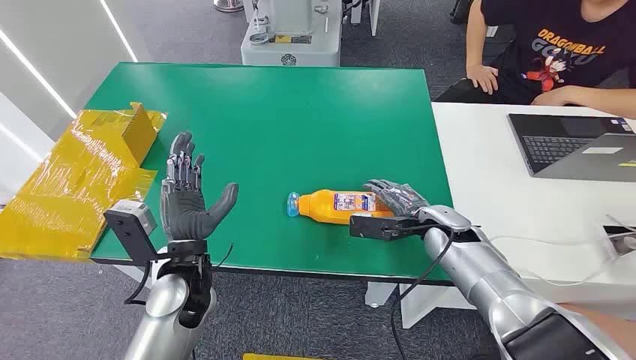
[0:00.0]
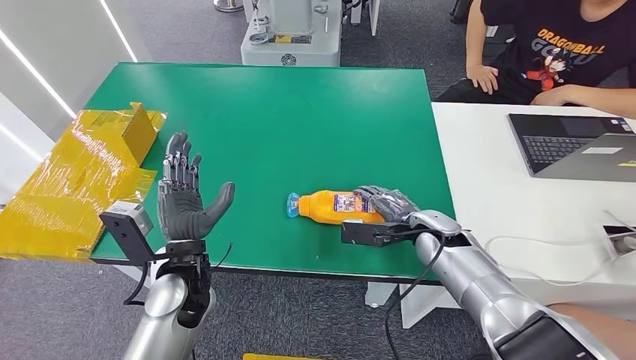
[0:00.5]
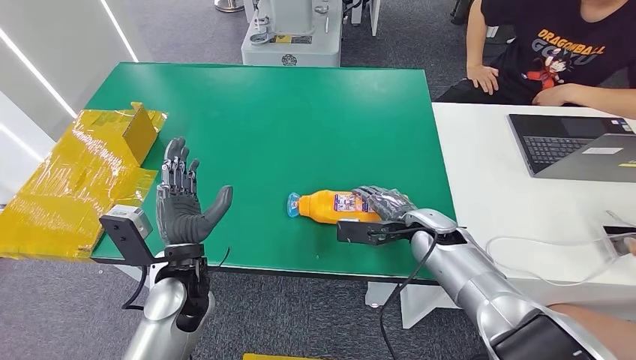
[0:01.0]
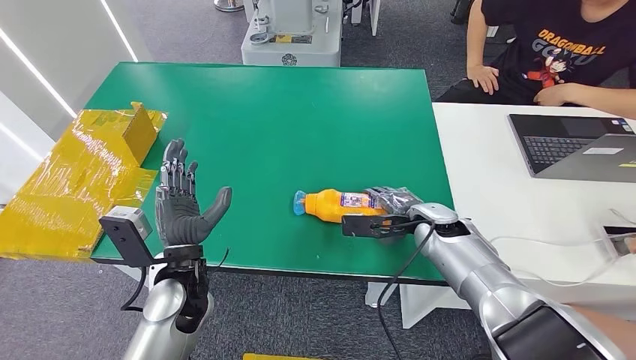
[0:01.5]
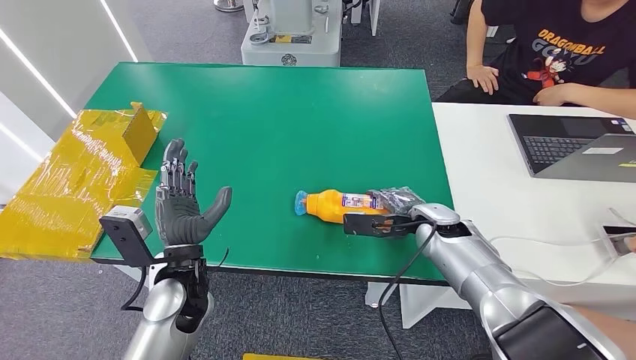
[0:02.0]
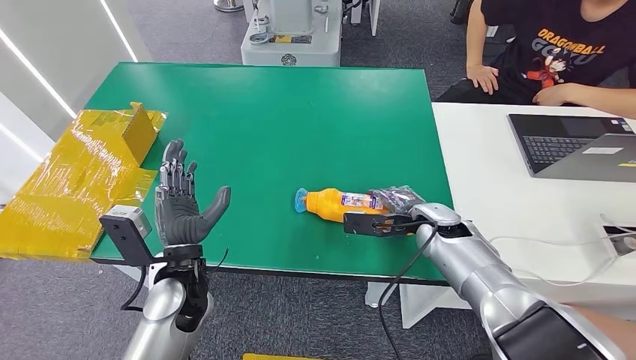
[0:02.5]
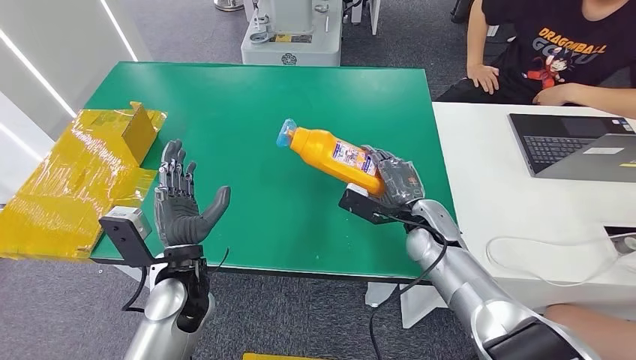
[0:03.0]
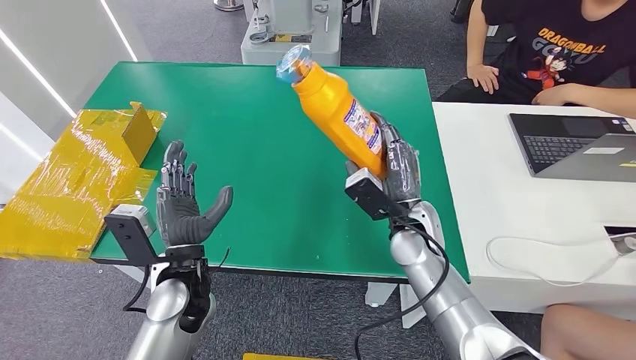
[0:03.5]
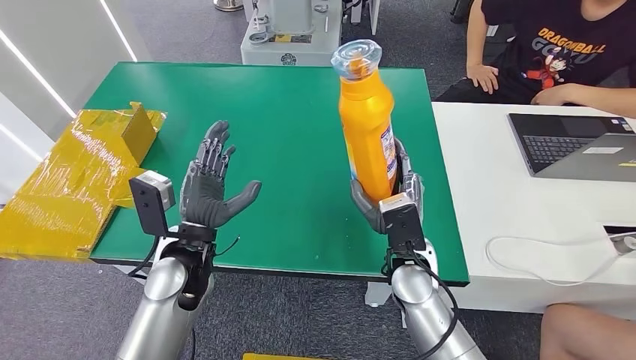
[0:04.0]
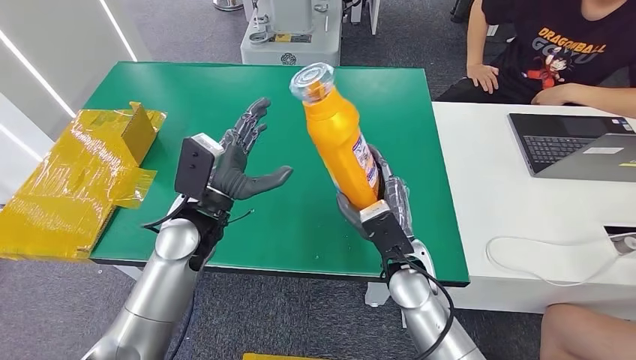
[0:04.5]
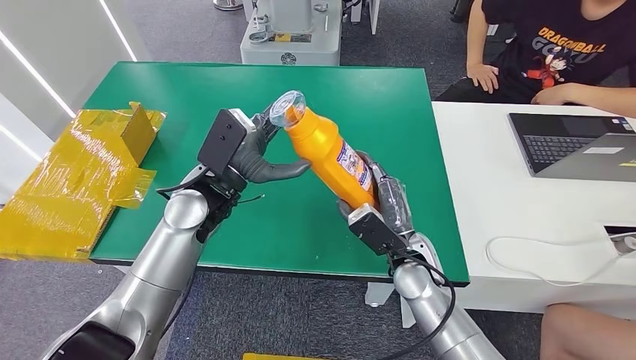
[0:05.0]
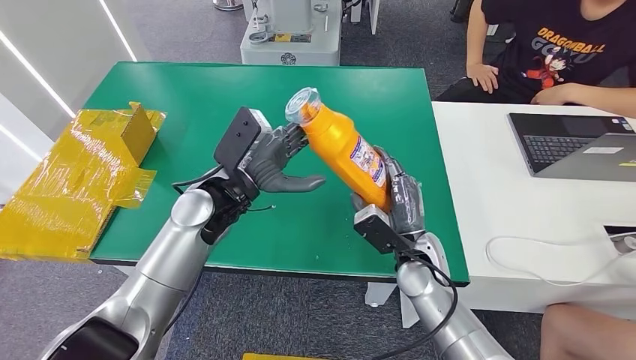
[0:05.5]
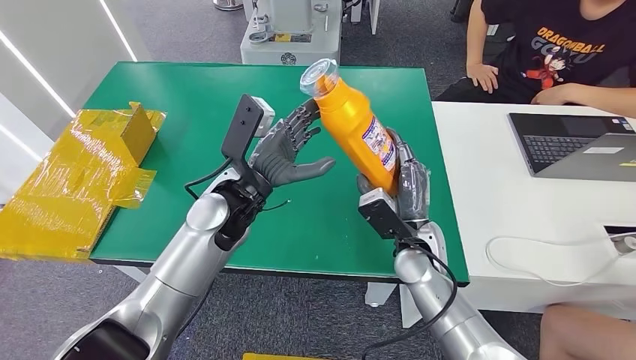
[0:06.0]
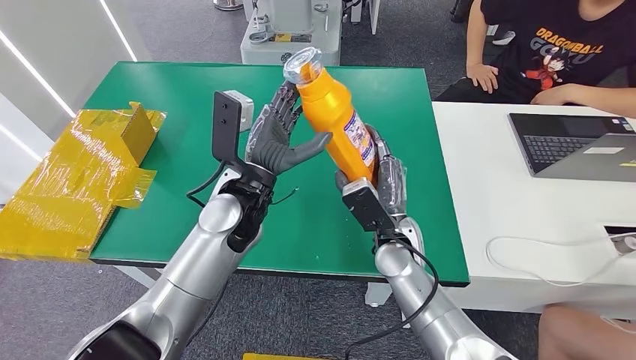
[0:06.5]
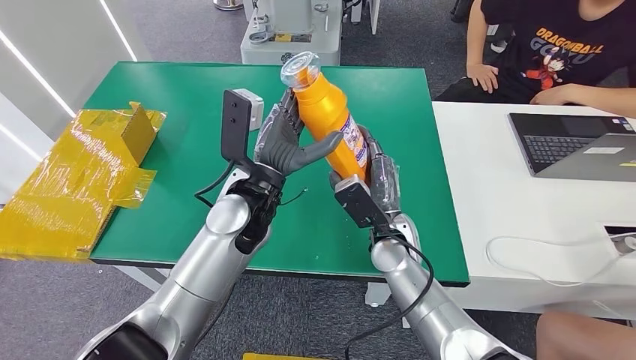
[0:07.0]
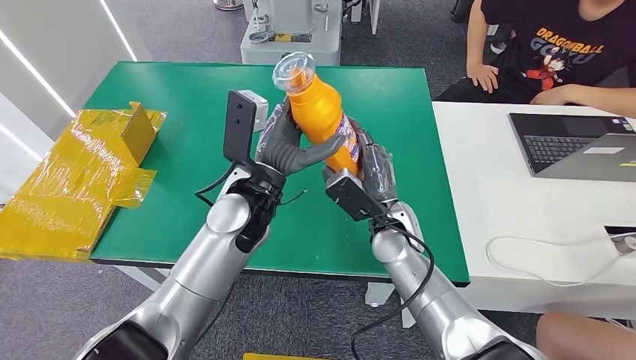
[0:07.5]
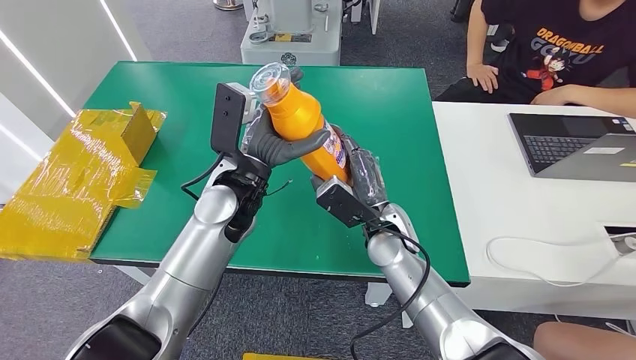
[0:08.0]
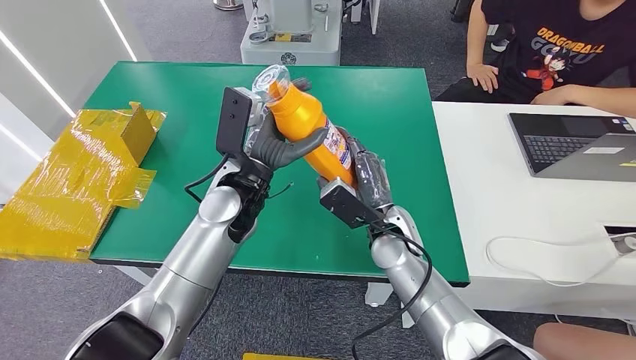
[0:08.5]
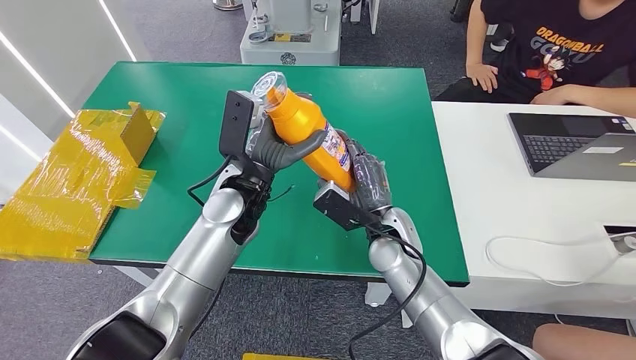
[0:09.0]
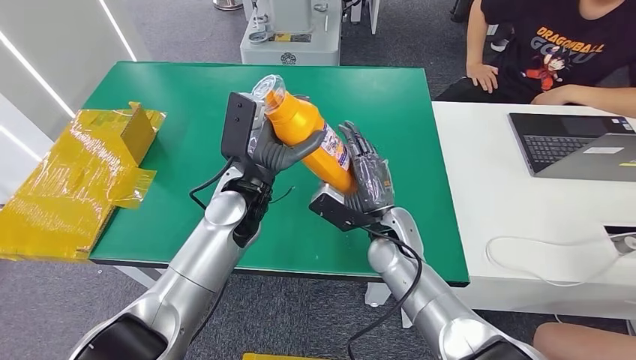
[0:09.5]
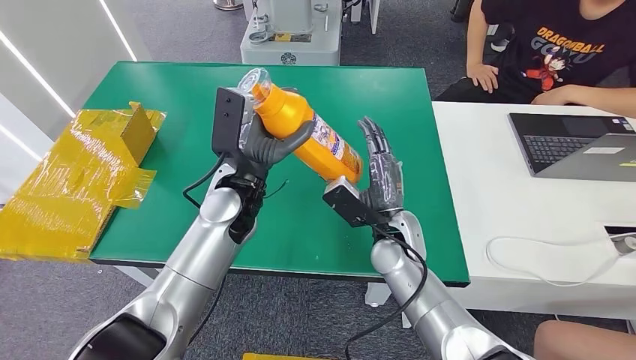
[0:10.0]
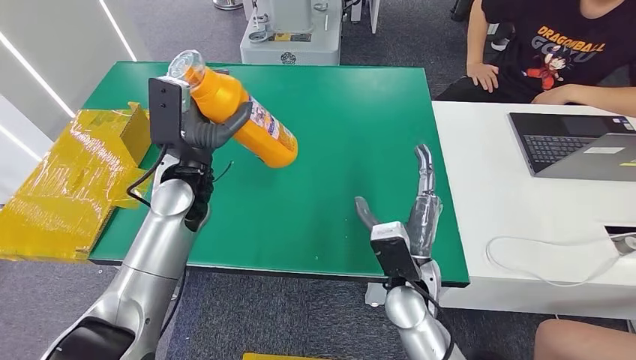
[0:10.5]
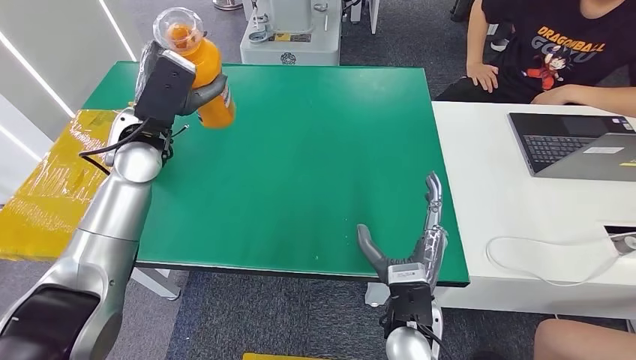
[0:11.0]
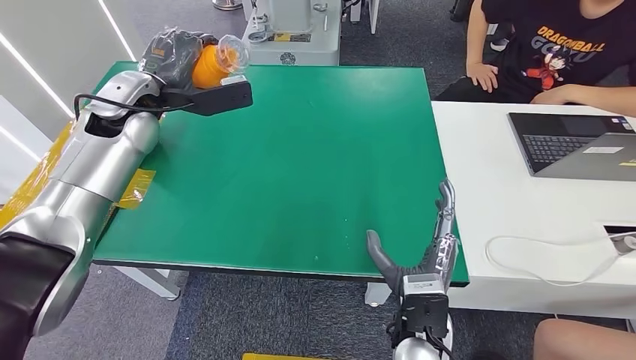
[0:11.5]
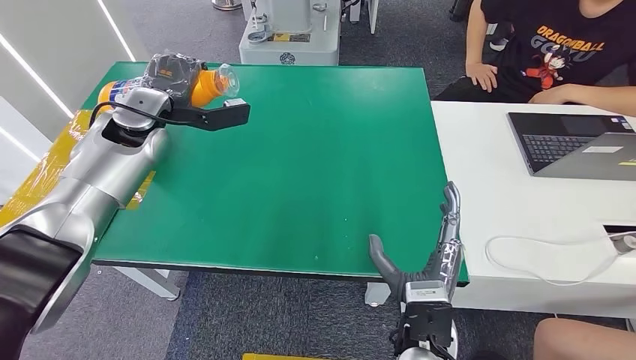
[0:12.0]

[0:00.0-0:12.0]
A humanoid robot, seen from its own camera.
Step, 0:00.0 to 0:03.5: Pick up the bottle from the table.
0:02.0 to 0:04.0: The right hand moves to the left and backward, approximately 15 cm.
0:04.0 to 0:06.0: The left hand heads forward, covering approximately 5 cm.
0:06.0 to 0:08.0: The right hand is displaced to the left by some 5 cm.
0:08.0 to 0:10.0: There are only small adjustments of the hands.

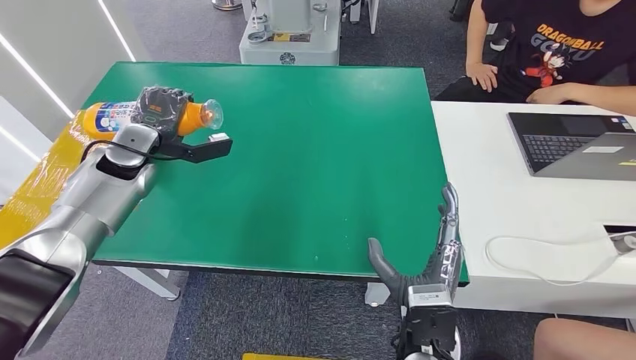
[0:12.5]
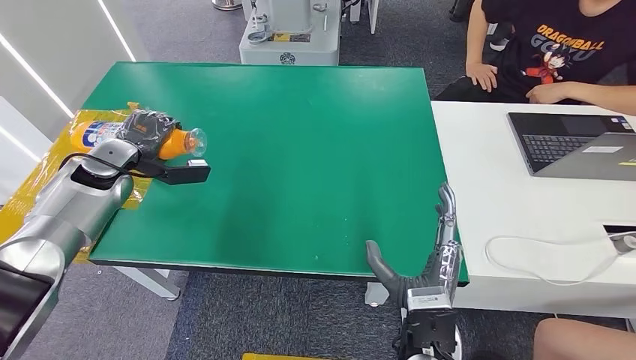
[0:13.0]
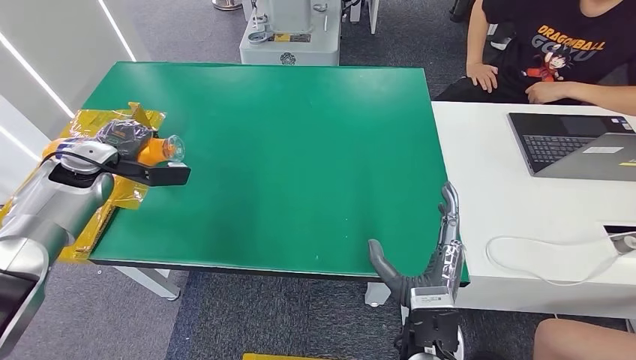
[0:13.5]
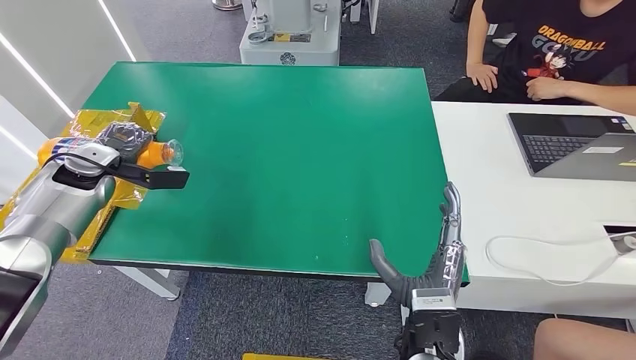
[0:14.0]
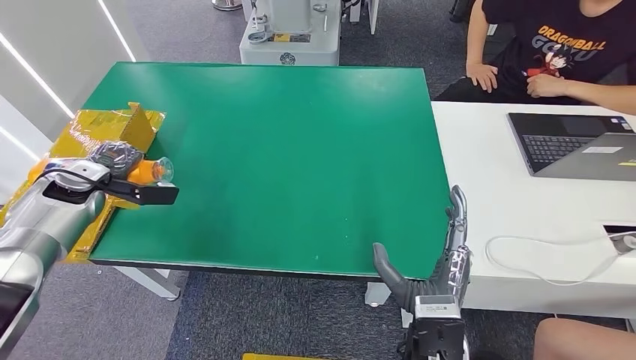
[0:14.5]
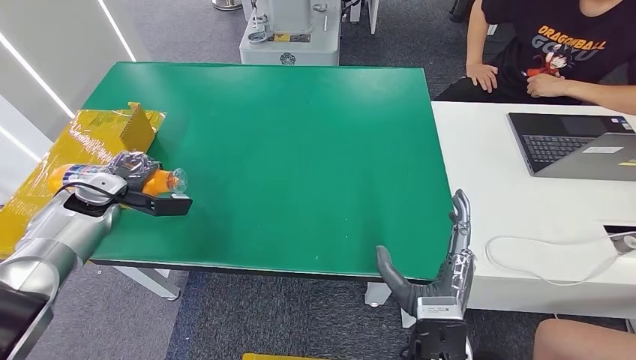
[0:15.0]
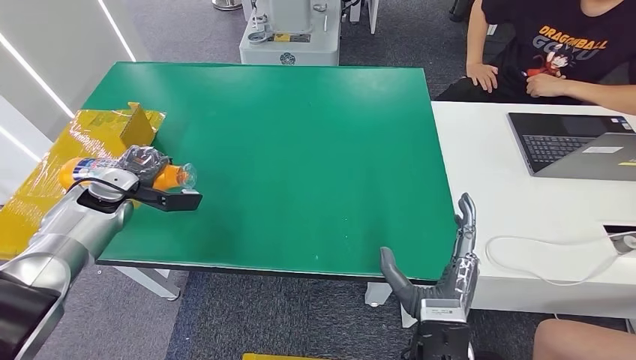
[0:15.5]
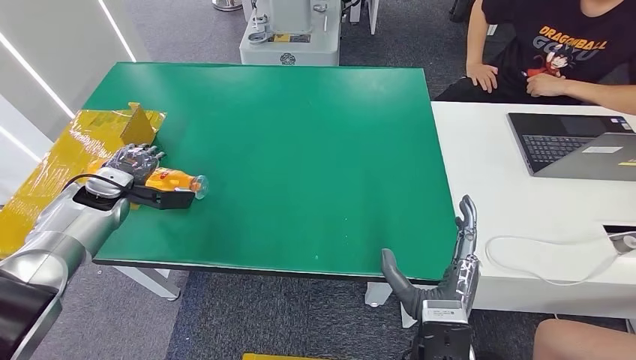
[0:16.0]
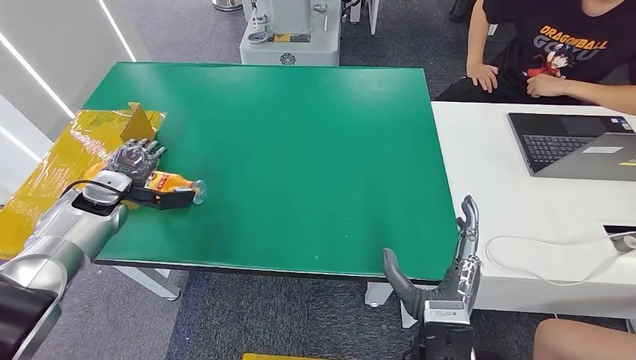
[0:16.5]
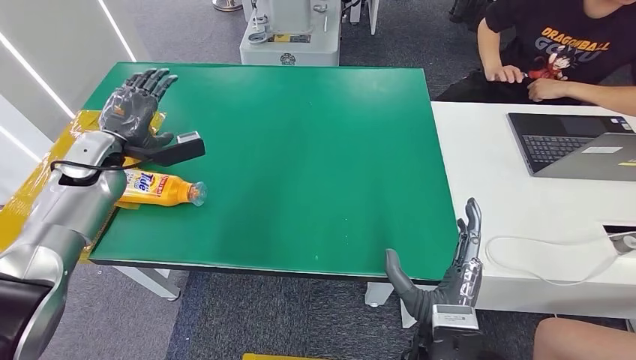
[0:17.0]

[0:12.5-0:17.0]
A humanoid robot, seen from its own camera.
Step, 0:12.5 to 0:17.0: Turn the bottle to the front side.
0:12.5 to 0:14.5: The left hand moves to the left, roughly 15 cm.
0:14.5 to 0:17.0: The left hand moves to the right, some 5 cm.
